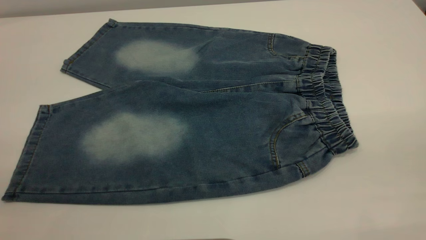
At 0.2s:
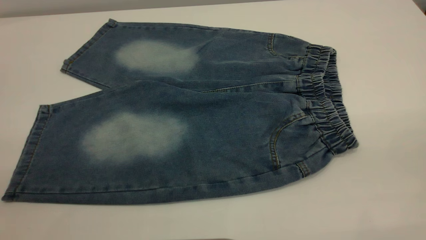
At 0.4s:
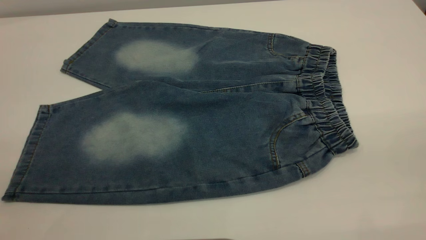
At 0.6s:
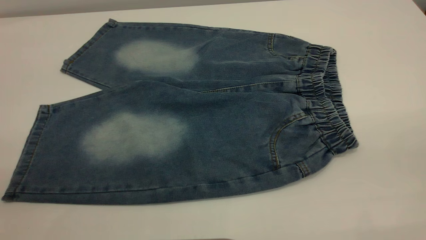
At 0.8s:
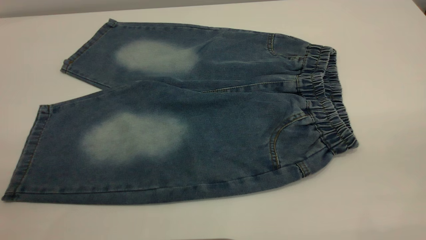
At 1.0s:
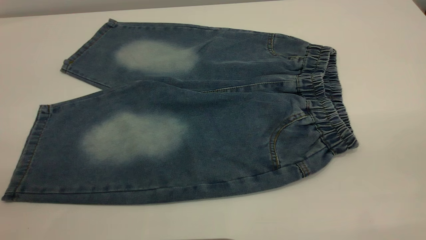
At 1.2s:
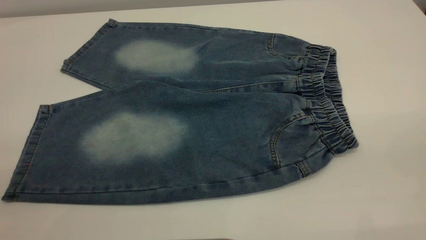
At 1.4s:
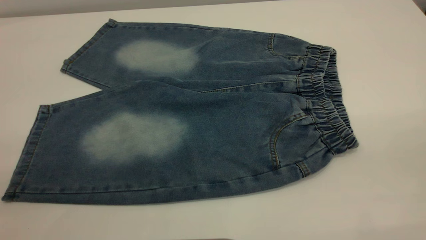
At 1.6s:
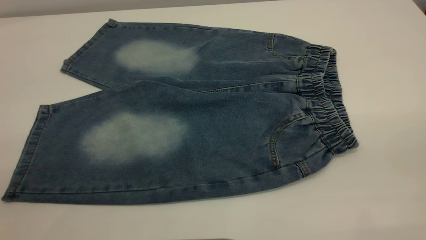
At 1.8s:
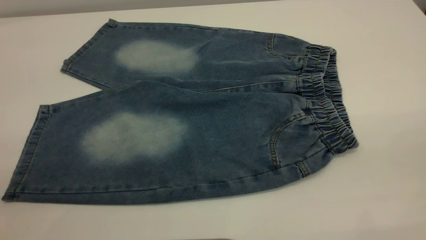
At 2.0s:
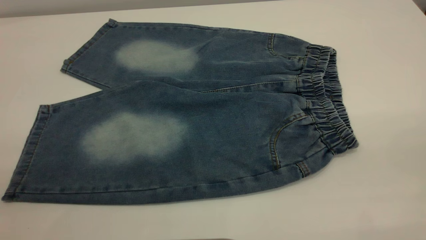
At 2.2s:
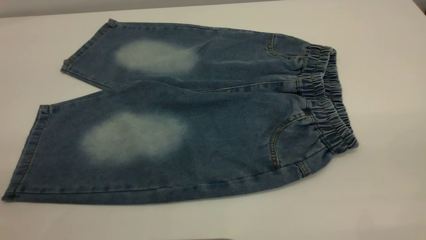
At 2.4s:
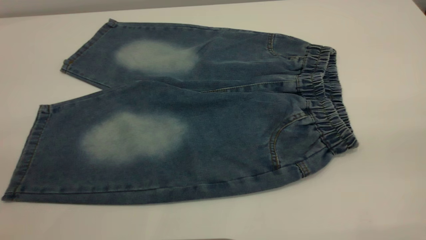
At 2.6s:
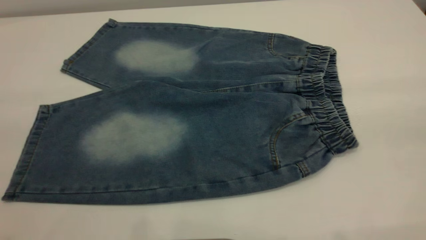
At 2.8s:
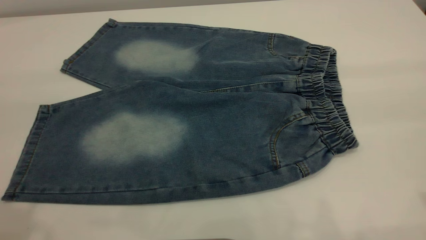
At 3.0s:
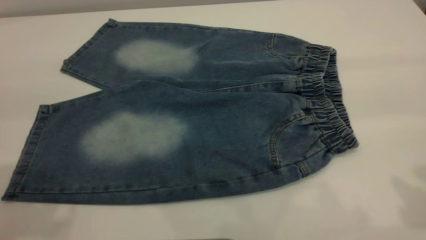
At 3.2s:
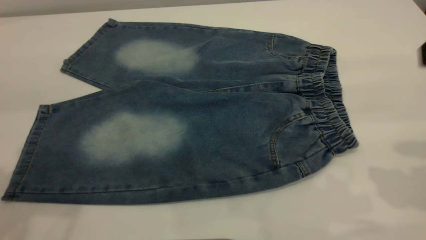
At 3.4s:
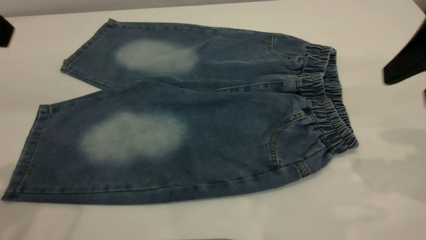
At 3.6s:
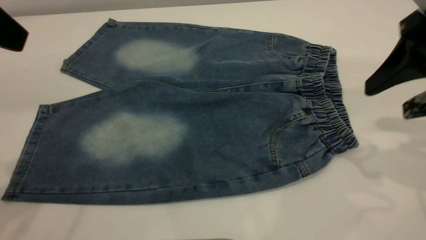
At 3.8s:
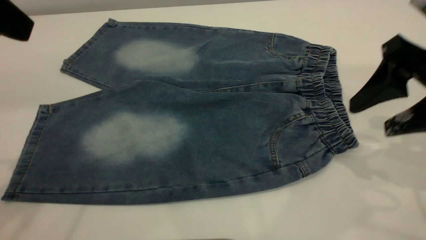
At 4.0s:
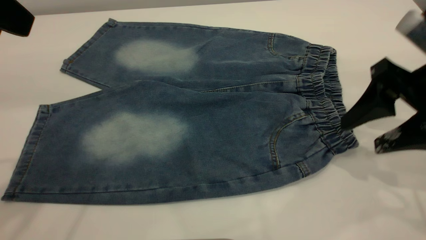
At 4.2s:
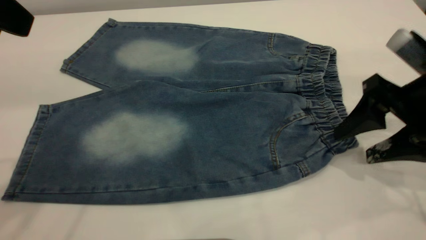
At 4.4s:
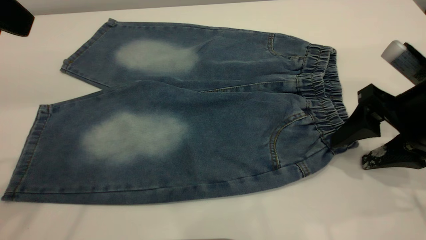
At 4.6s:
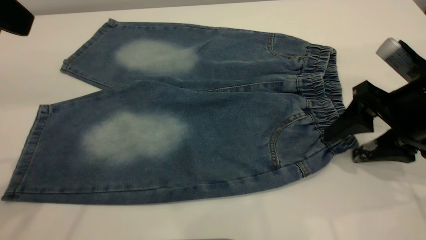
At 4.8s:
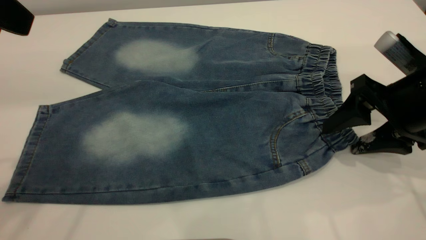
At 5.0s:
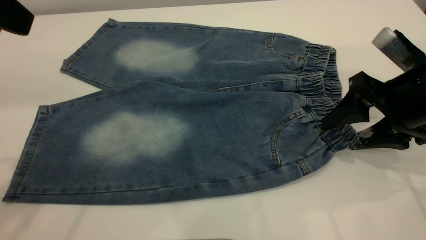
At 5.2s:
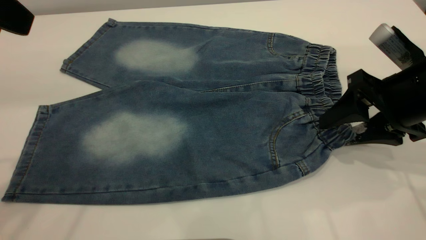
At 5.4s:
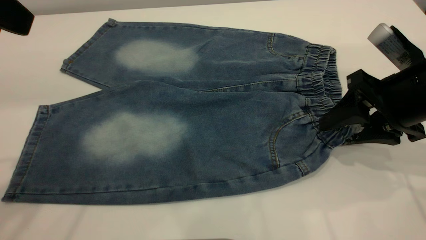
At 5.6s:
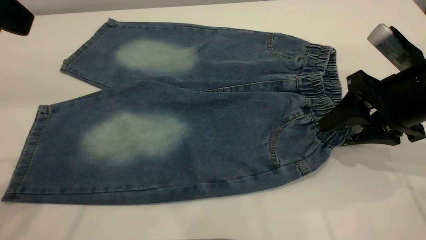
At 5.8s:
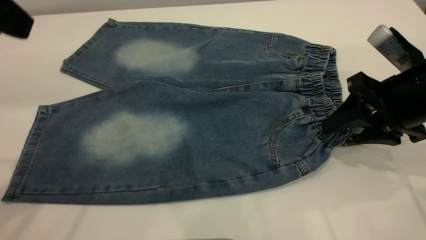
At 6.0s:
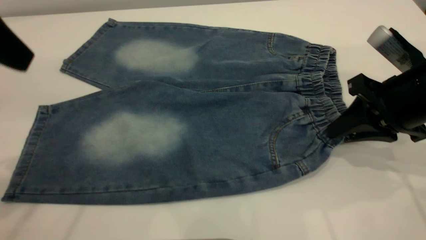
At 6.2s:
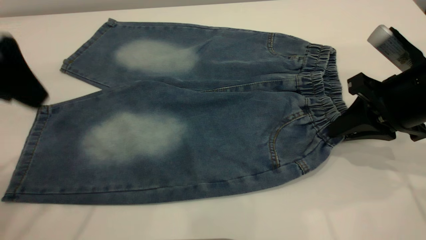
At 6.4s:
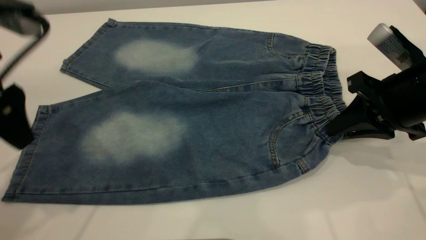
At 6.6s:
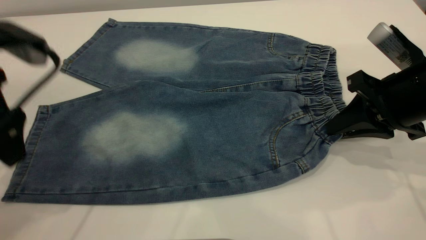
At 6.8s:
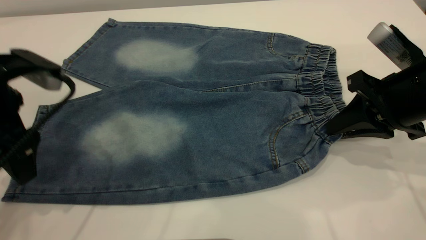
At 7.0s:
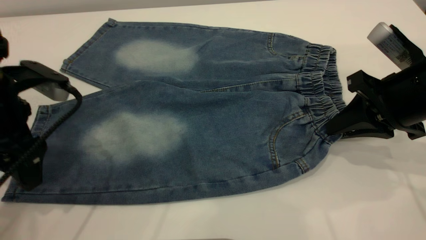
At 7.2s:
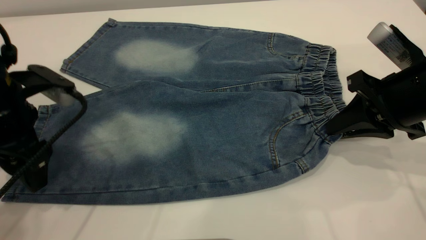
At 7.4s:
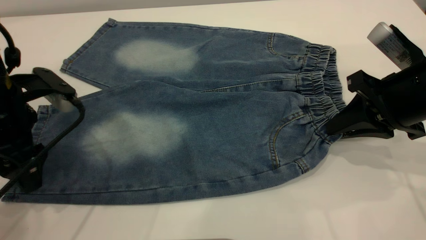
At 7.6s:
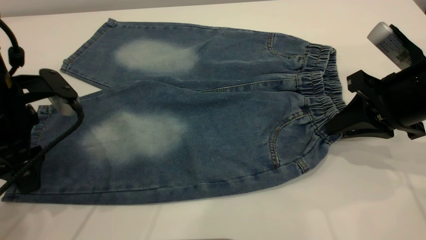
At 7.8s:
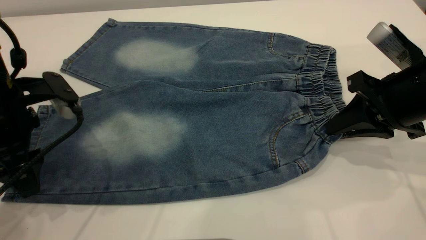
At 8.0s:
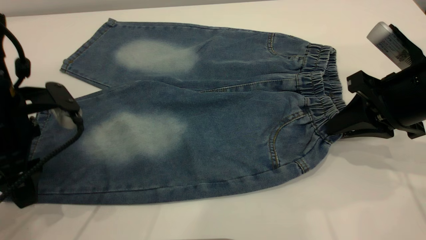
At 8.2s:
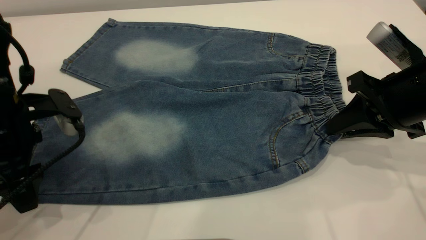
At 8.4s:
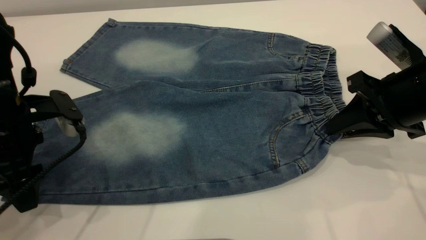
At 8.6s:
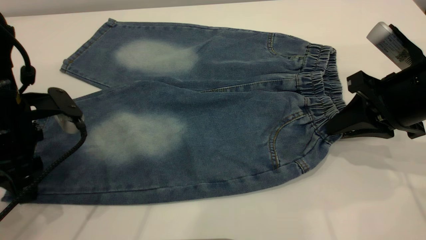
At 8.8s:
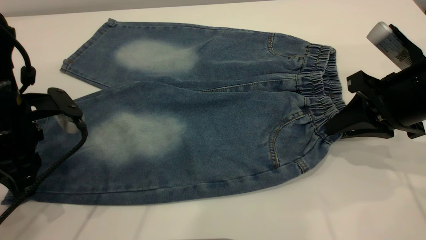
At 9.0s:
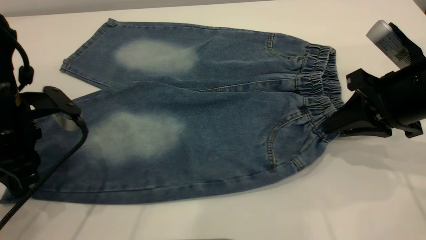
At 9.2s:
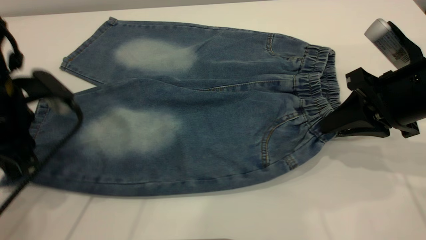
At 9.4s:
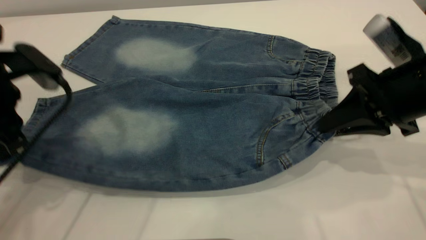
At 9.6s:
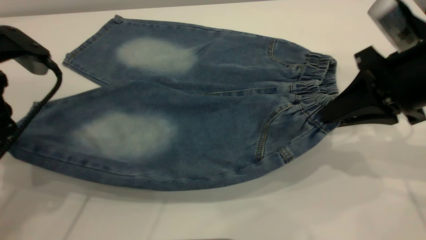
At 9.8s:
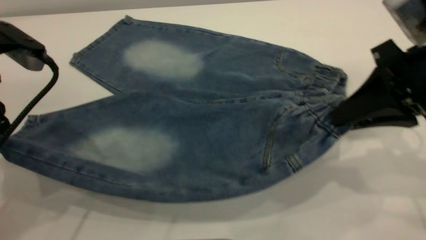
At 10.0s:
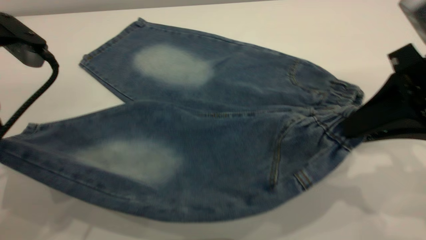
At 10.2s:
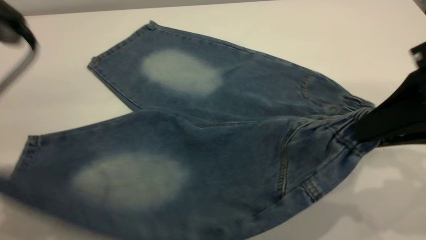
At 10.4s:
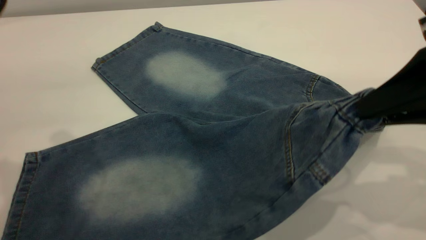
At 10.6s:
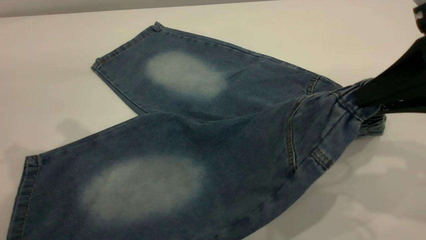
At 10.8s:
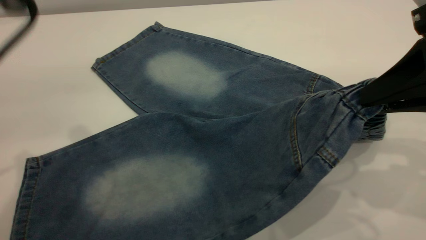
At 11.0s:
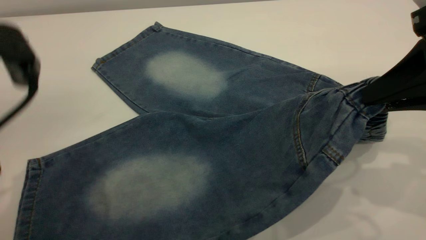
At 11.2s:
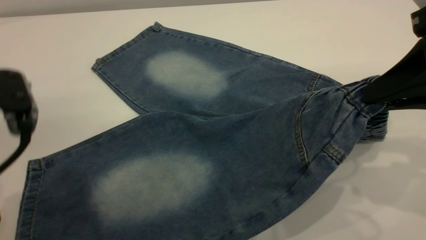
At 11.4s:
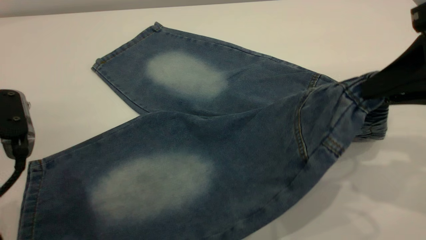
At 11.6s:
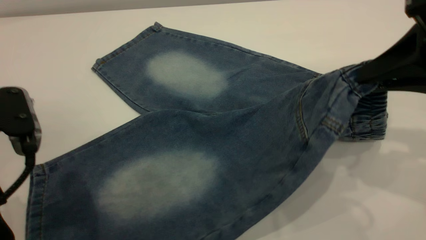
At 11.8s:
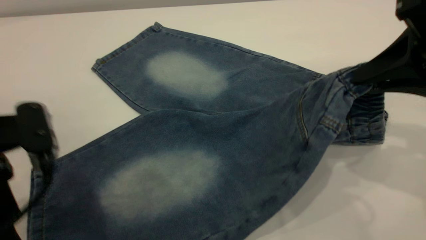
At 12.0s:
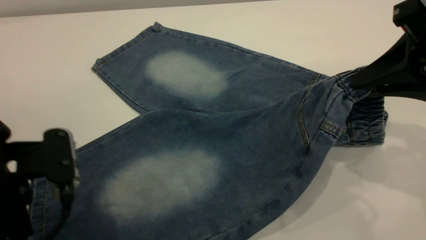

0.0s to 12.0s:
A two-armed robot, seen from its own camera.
0.0s to 1.6s: The two grippers keep their place.
3.0s to 4.4s: The right gripper shifts some 20 cm downward and forward. Meanwhile the left gripper travels forward by about 5 cm.
4.4s to 6.0s: The right gripper closes its fingers.
6.0s to 7.6s: The left gripper is displaced downward by roughly 15 cm.
7.6s to 9.0s: The left gripper closes its fingers.
9.0s to 10.4s: The right gripper goes about 15 cm upward and backward, while the left gripper heads upward, covering roughly 20 cm.
10.4s to 12.0s: The left gripper moves downward and backward, approximately 15 cm, and opens.

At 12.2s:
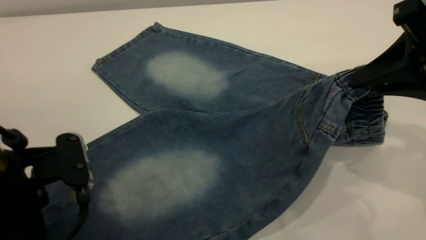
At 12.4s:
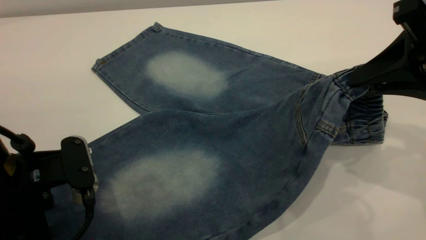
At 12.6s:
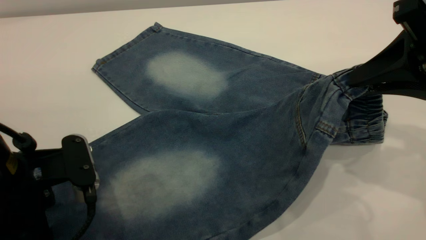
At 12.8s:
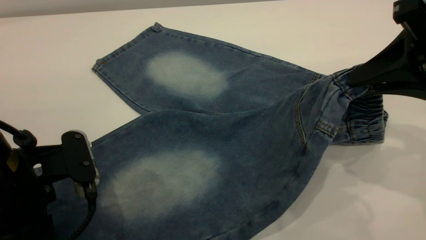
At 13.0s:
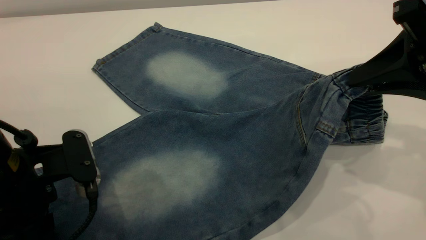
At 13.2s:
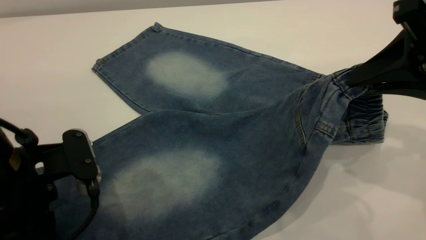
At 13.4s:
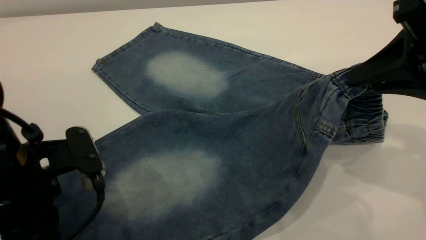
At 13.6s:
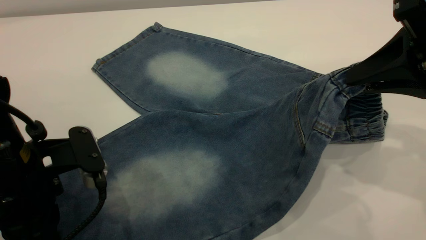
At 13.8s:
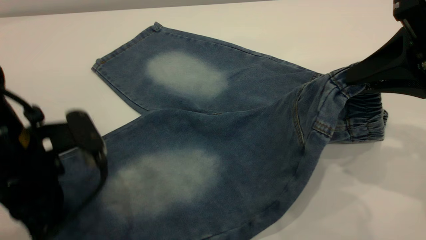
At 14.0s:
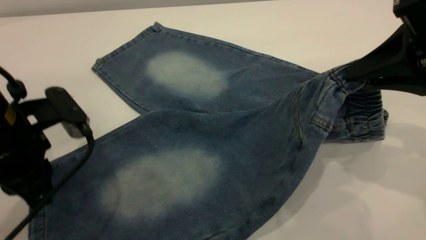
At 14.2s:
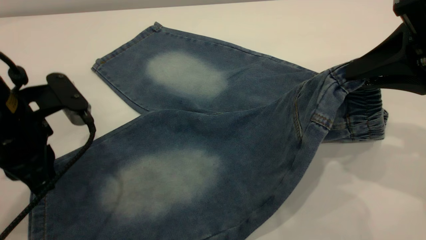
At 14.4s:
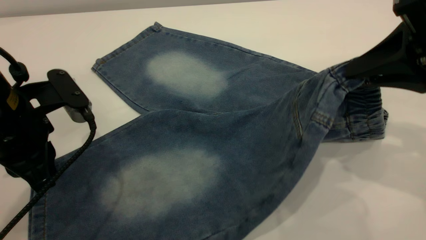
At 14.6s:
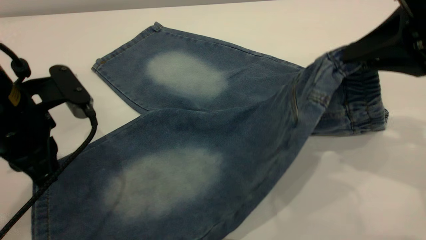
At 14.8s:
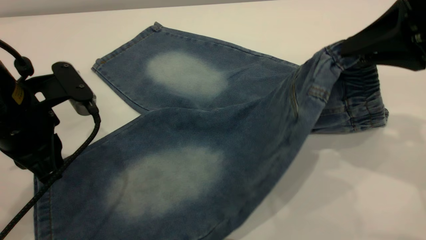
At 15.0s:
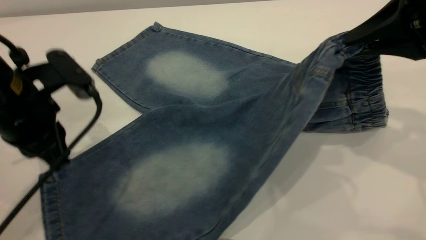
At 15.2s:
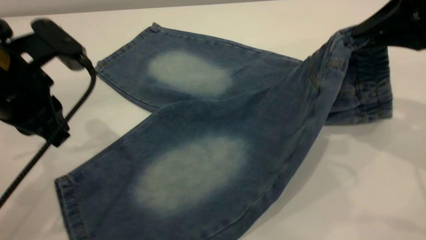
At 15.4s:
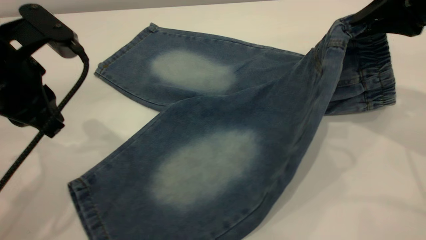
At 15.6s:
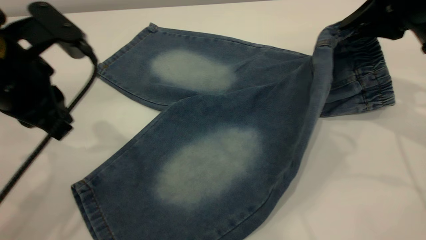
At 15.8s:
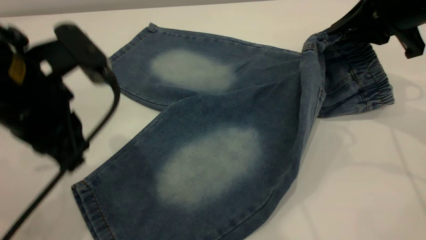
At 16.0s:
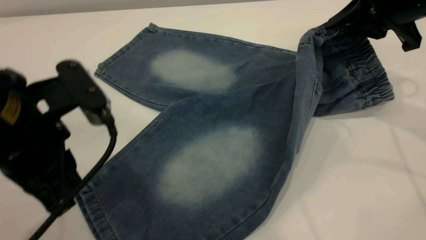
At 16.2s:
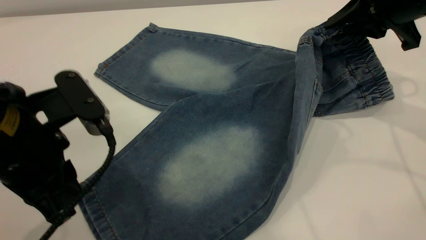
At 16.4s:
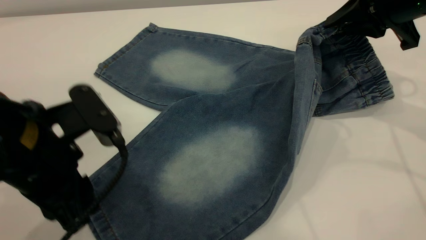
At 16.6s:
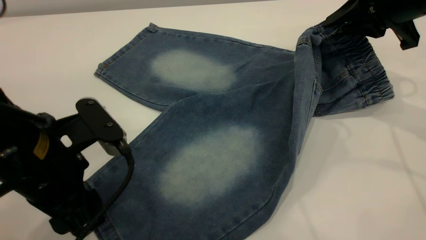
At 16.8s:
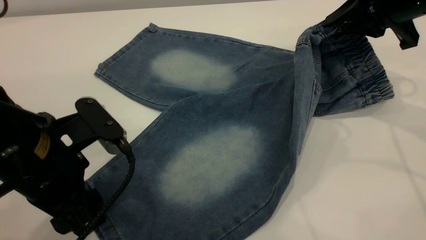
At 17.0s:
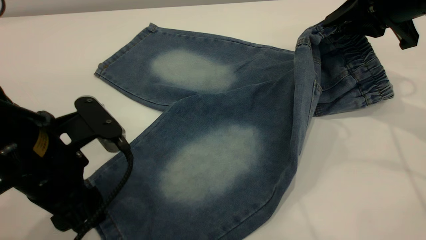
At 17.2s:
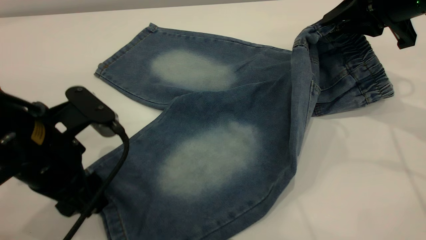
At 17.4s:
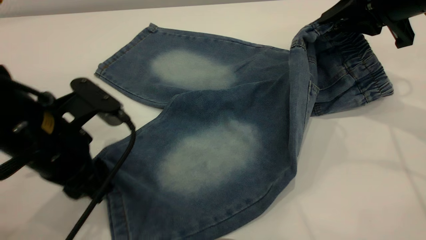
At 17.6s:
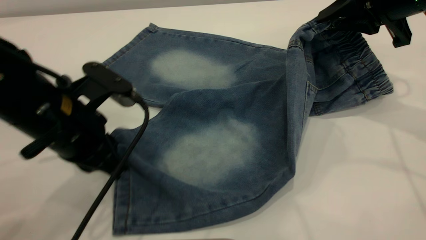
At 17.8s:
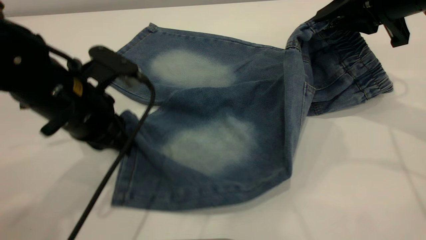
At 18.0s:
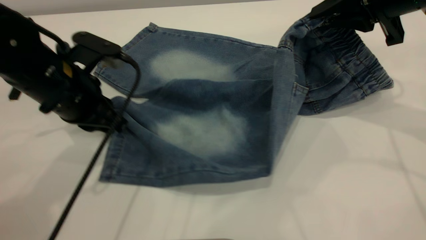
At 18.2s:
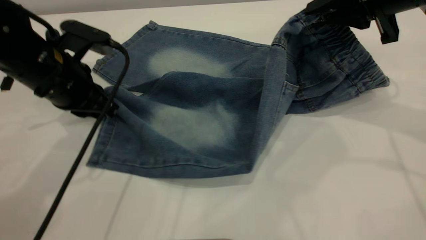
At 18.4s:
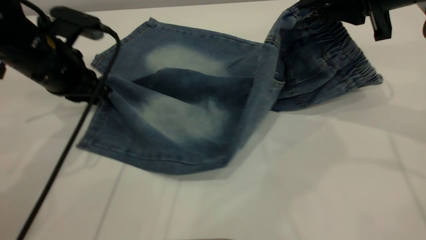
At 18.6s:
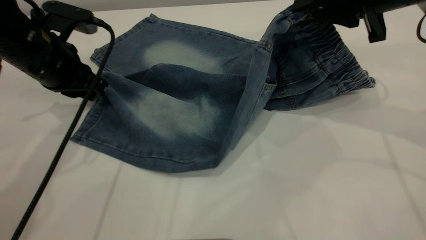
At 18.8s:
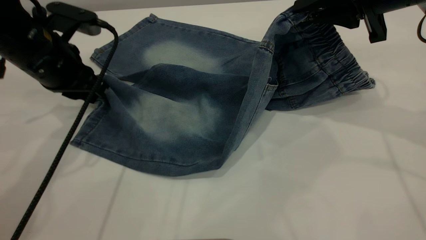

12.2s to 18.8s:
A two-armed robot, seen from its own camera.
12.2s to 13.8s: The left gripper closes up.
13.8s to 15.4s: The right gripper moves forward, approximately 10 cm, while the left gripper travels upward and forward by about 10 cm.
15.4s to 17.2s: The left gripper travels downward by approximately 5 cm, and opens its fingers.
17.2s to 18.8s: The left gripper is displaced forward by roughly 15 cm, and closes its fingers.
